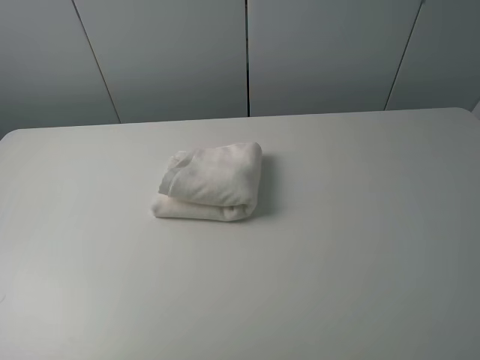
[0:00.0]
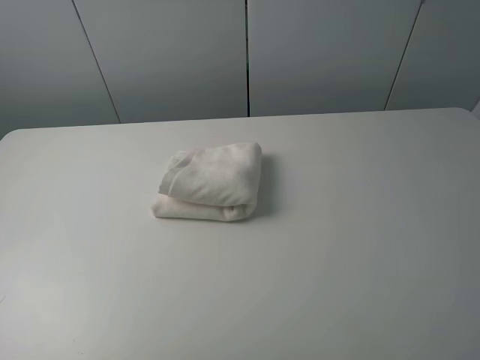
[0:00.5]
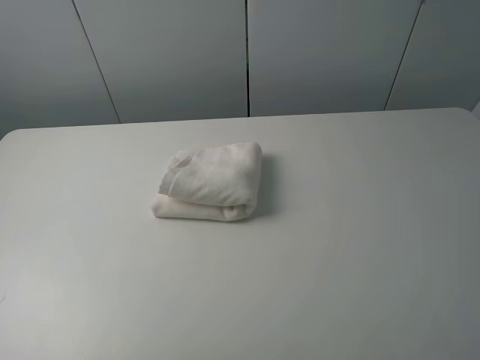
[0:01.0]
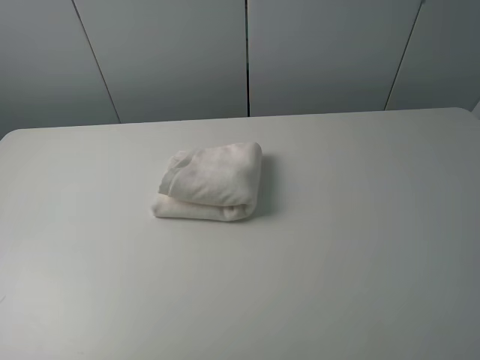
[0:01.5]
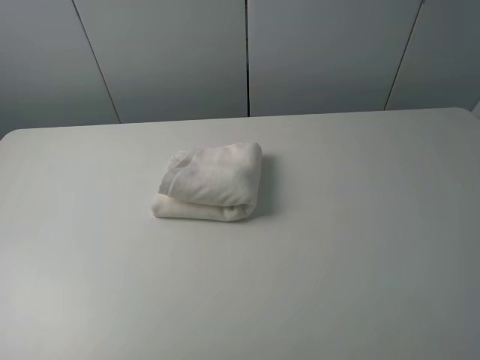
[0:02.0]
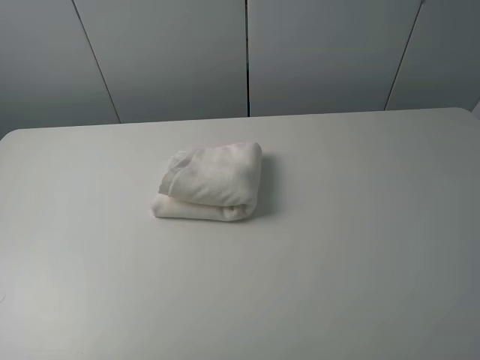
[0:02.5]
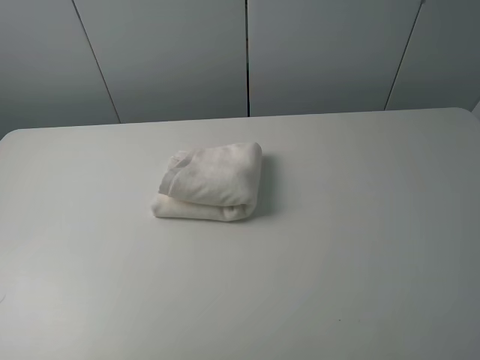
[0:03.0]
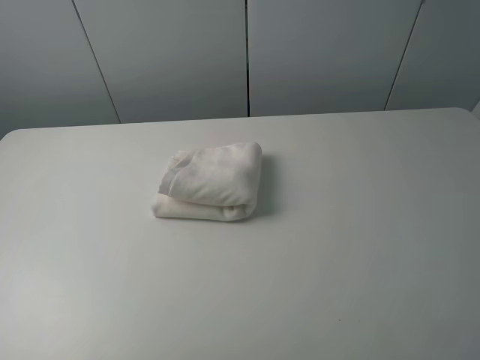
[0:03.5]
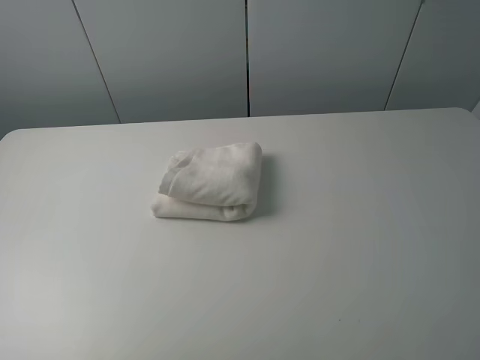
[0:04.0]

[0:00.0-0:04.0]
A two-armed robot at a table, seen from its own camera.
Task of the whole recording: fold the towels on the table.
0:02.0 to 0:04.0: The two grippers keep their place.
